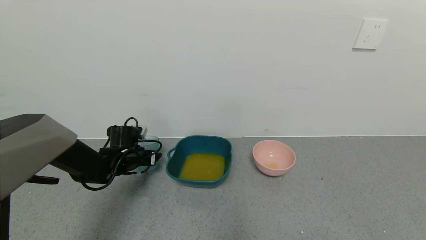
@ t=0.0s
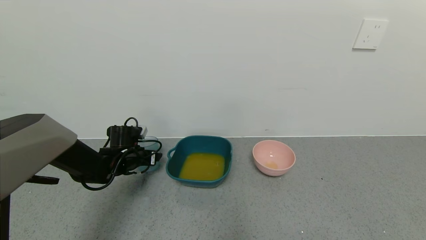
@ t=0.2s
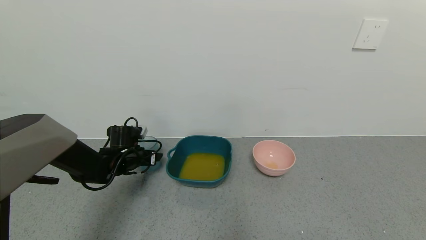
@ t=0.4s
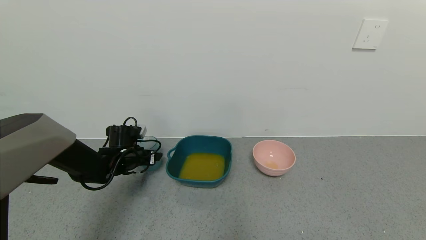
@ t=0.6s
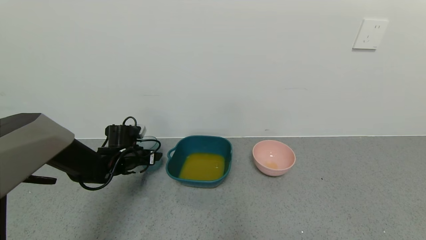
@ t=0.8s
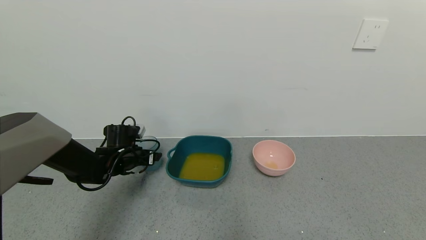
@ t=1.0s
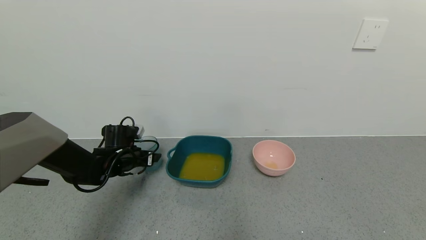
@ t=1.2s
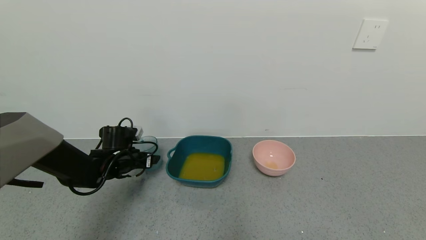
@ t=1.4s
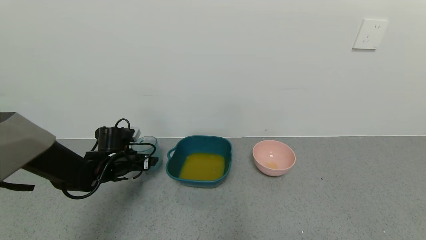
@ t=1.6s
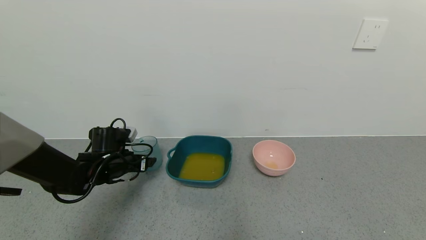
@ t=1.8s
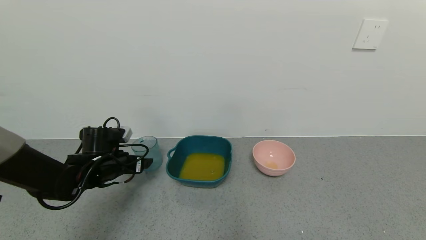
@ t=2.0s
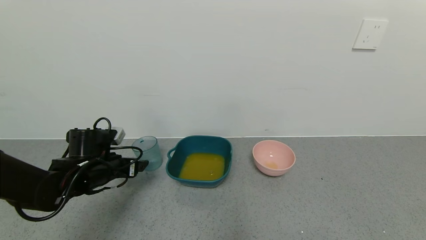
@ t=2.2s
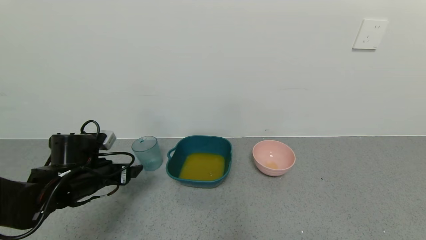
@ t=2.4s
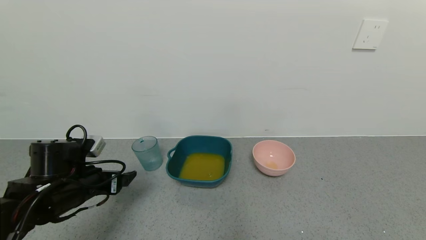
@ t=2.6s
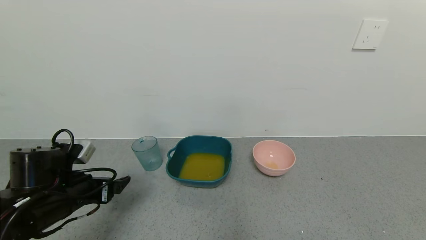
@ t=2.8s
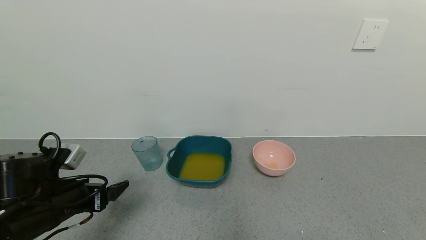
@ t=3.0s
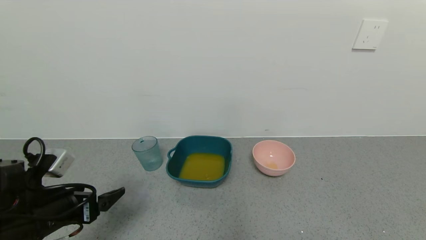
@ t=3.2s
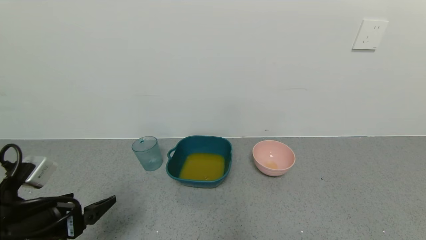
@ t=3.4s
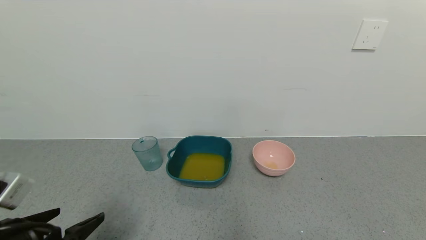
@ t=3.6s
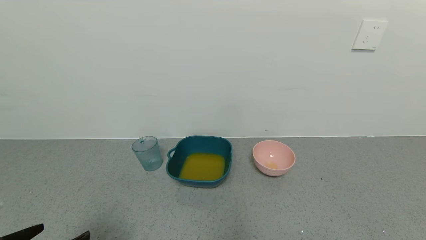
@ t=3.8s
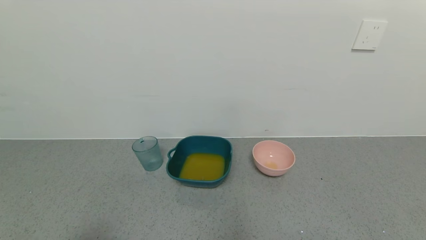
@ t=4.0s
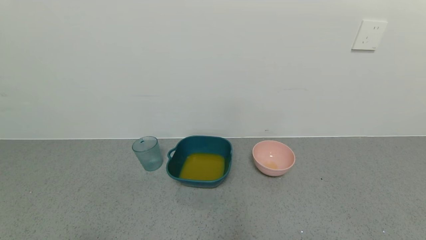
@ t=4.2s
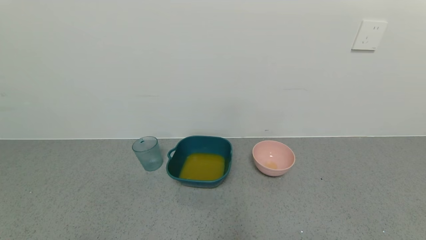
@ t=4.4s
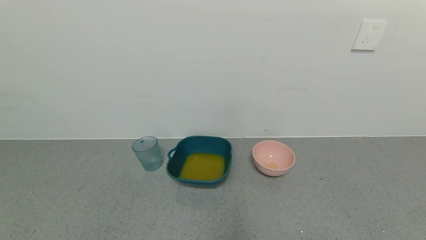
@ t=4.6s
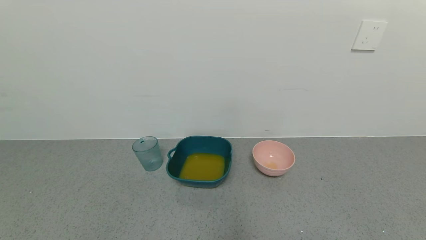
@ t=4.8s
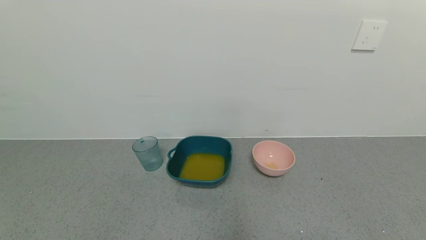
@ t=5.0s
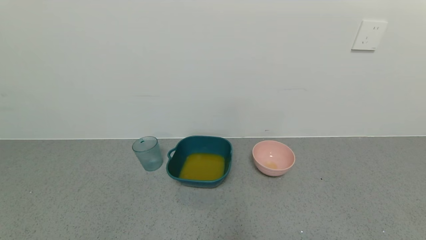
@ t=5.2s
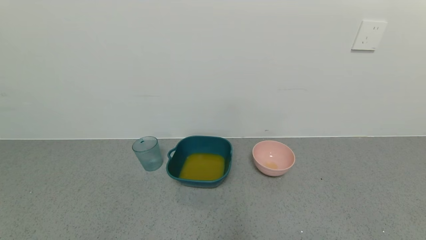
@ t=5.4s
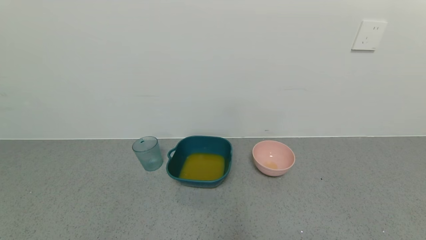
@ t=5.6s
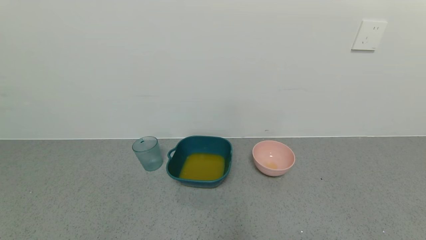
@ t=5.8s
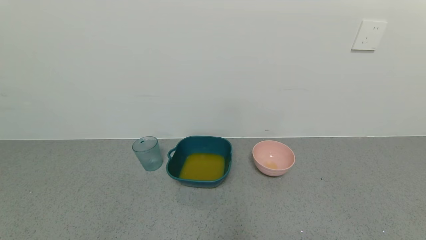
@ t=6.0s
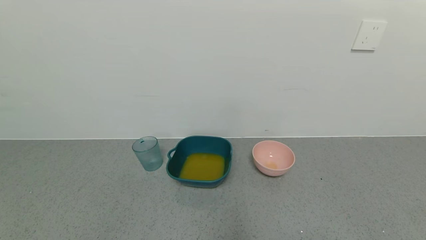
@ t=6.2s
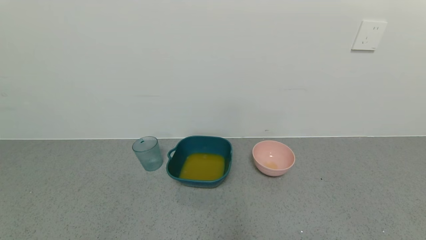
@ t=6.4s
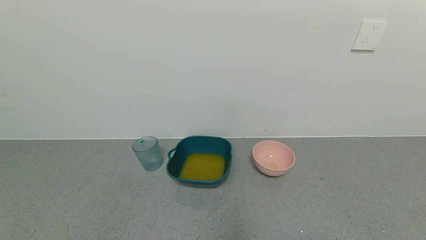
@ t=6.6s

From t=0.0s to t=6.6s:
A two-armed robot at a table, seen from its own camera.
Task of the whole recording: use a gripper to pick up the cup and pour the liquid into a bowl or tray.
From t=0.0s to t=1.6s: The left gripper opens.
From t=1.6s to t=3.2s: The left gripper shifts approximately 20 cm backward.
From t=3.2s to t=5.0s: The left gripper goes about 20 cm backward.

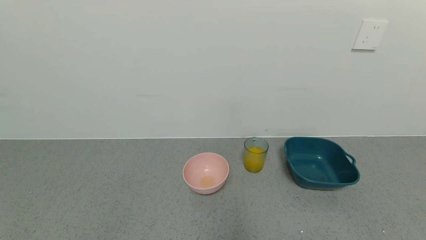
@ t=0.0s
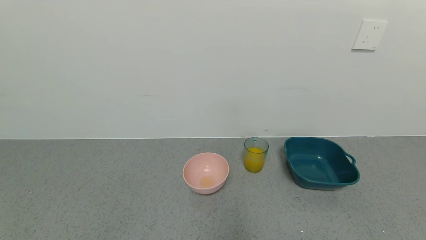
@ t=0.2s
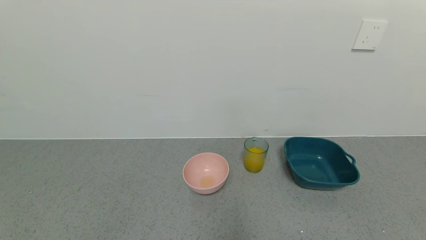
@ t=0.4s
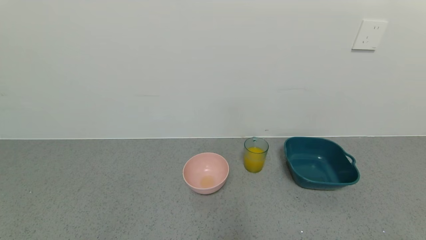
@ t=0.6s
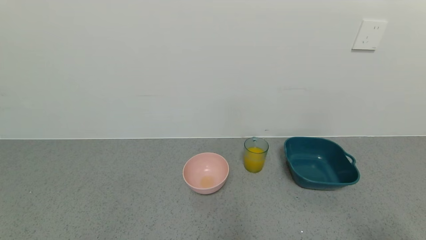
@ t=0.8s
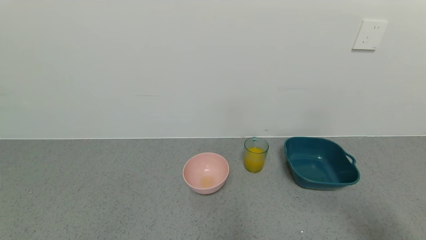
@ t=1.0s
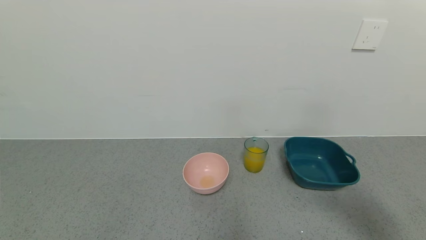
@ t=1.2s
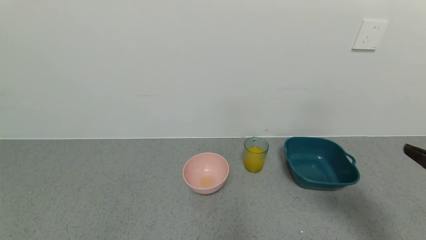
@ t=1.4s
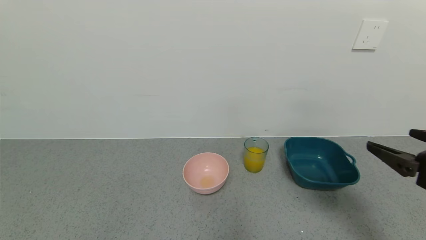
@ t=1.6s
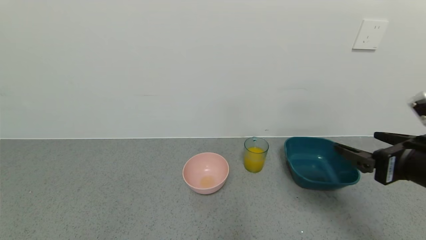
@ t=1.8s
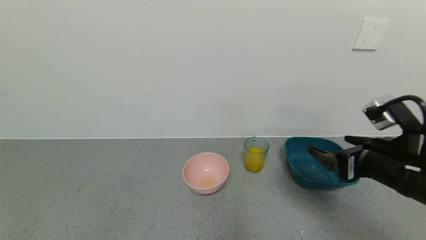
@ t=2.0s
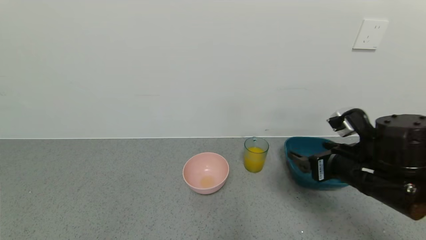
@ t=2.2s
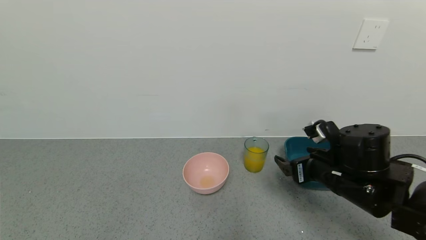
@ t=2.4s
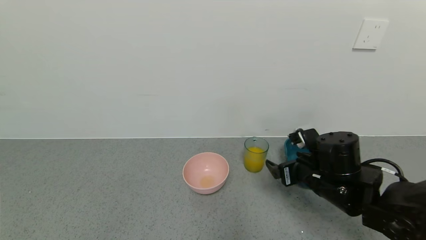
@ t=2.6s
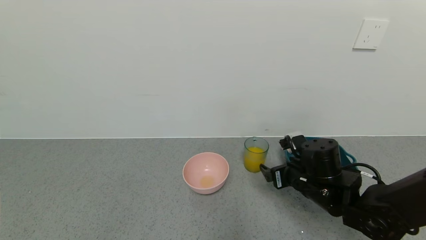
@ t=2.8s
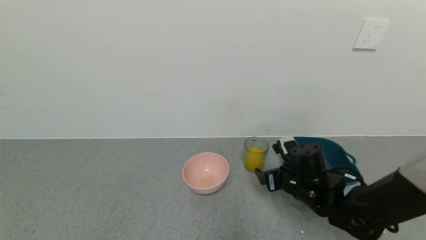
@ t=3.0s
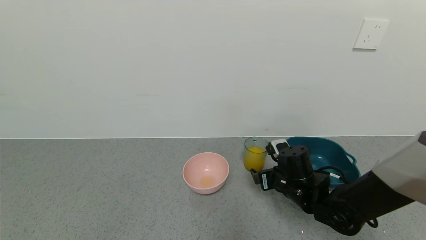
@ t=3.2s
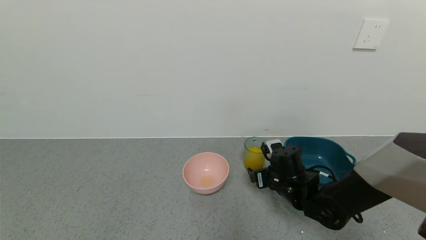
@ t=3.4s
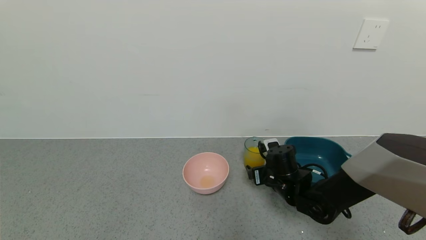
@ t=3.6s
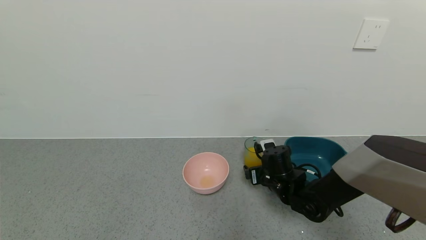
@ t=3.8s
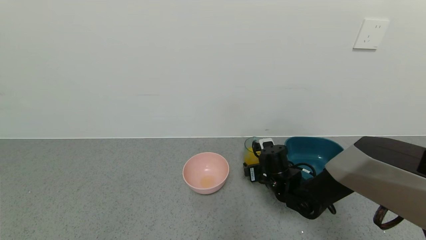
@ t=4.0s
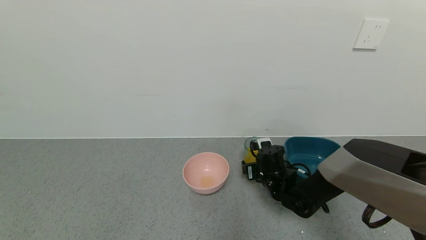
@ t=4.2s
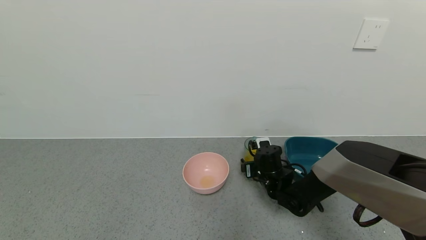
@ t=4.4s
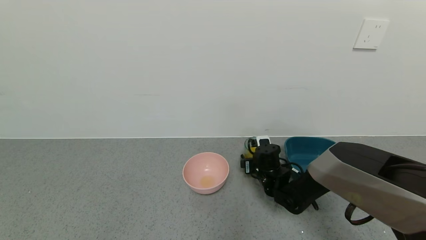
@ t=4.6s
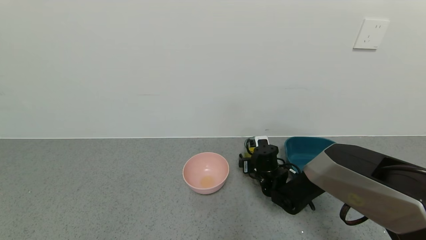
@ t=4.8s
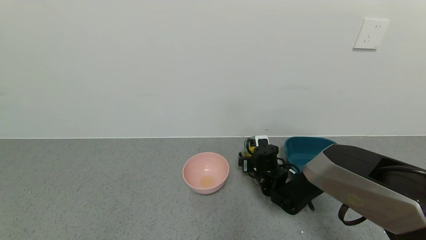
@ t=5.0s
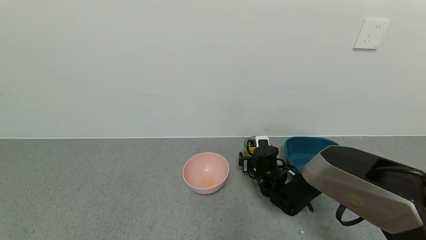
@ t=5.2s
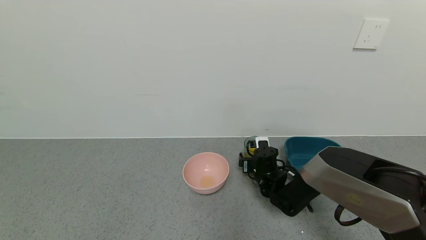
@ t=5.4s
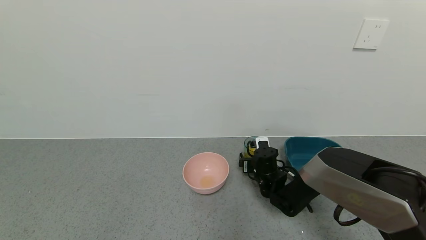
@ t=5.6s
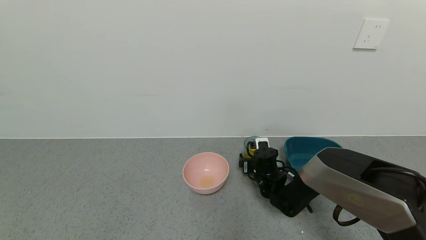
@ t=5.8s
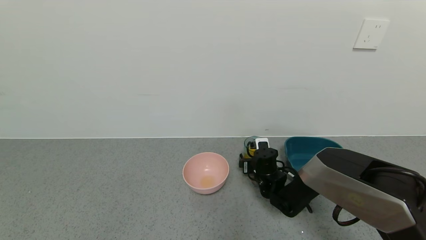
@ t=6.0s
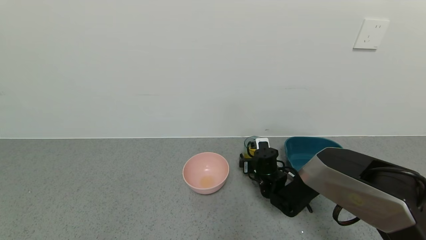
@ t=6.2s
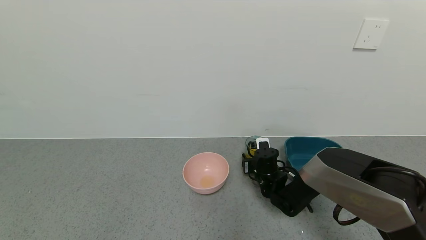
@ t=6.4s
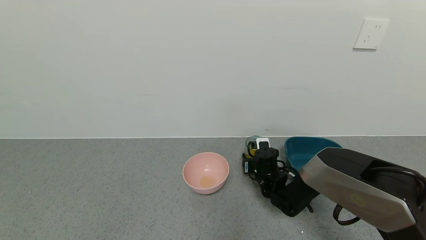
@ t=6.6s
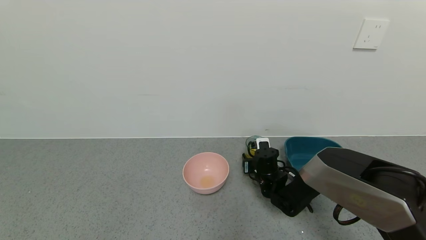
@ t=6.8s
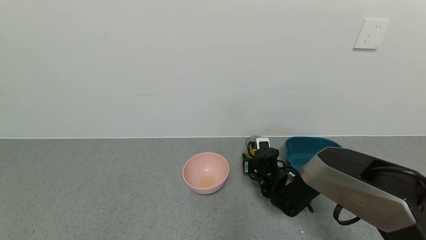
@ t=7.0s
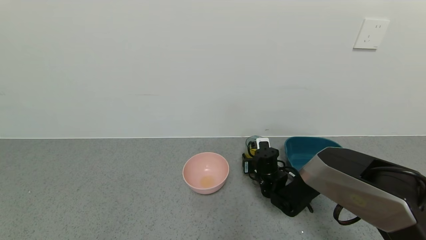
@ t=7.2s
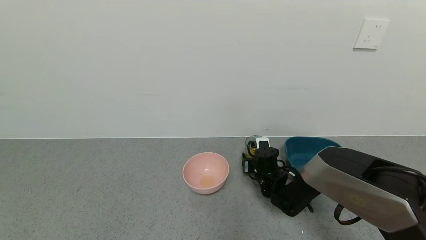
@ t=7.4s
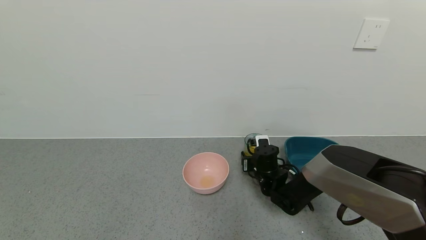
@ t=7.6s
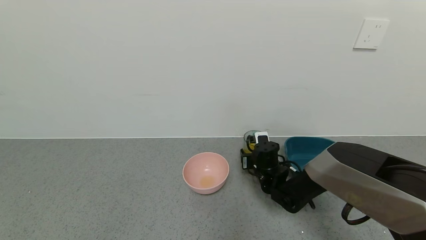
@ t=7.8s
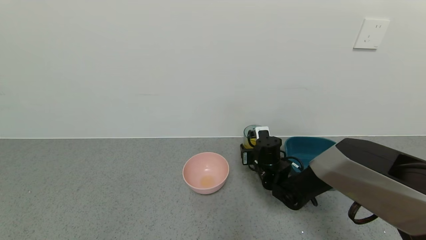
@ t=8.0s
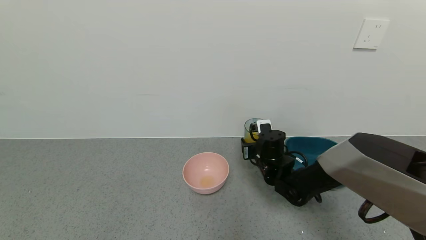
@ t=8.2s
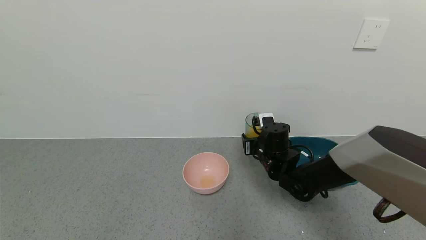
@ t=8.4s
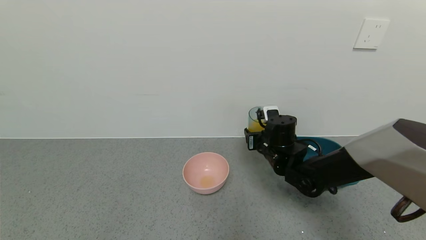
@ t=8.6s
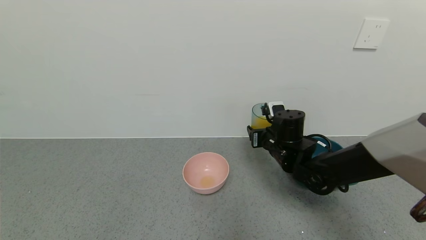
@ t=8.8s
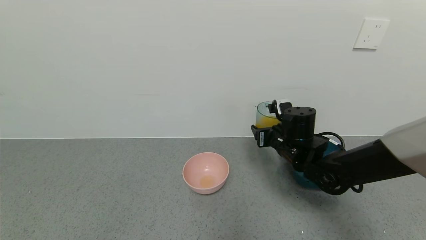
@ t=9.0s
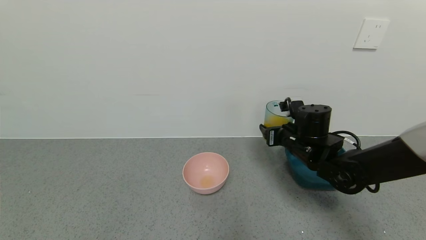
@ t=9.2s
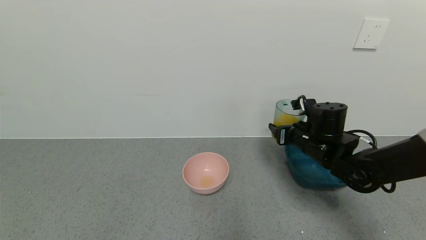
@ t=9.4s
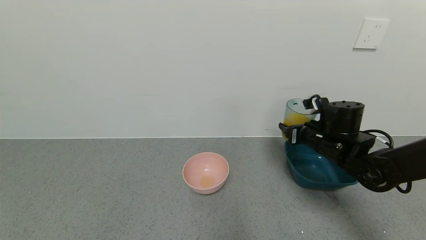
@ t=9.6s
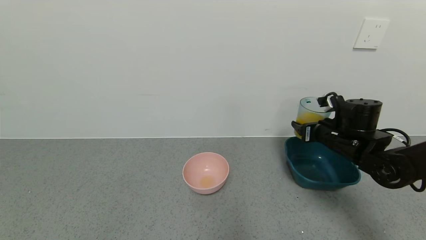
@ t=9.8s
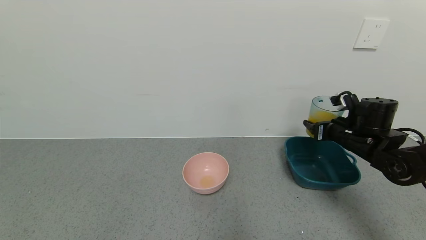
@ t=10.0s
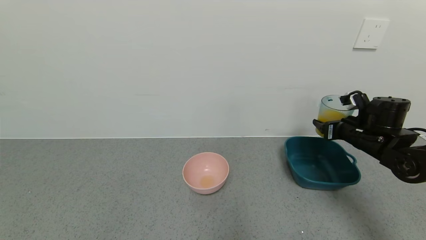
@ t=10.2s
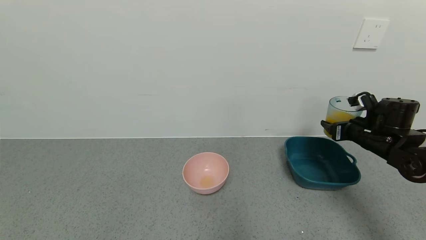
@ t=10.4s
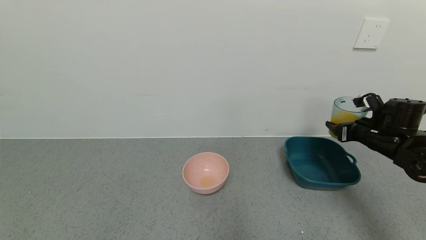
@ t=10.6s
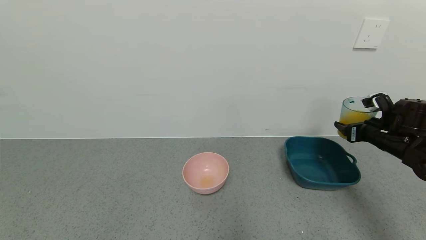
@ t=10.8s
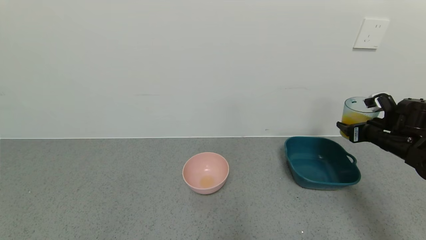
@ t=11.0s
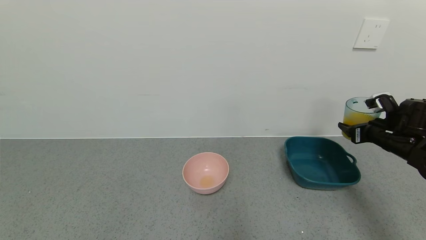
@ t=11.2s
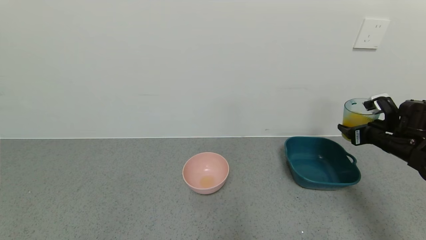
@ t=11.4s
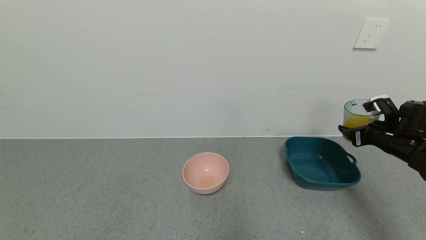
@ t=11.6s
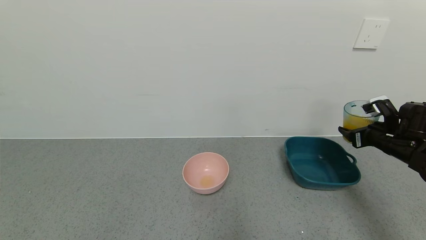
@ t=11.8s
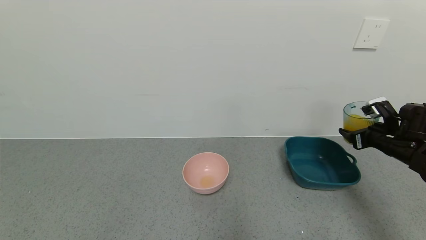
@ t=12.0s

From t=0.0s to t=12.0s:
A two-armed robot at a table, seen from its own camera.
Task of the whole recording: use a gripper to pick up the cup and pour the liquid into a bowl or tray.
From t=0.0s to t=1.6s: The right gripper shifts roughly 25 cm forward and upward.
From t=1.6s to t=3.0s: The right gripper heads downward, forward and to the left, covering some 25 cm.
From t=3.0s to t=4.4s: The right gripper is displaced forward and downward by some 10 cm.
From t=4.4s to t=6.0s: There are only small adjustments of the grippers.
From t=6.0s to t=7.6s: The right gripper closes.
From t=7.6s to t=9.0s: The right gripper is displaced upward by about 15 cm.
From t=9.0s to t=10.4s: The right gripper shifts about 20 cm to the right.
From t=10.4s to t=12.0s: The grippers move only a little.
